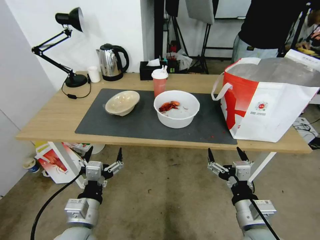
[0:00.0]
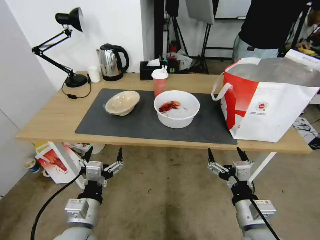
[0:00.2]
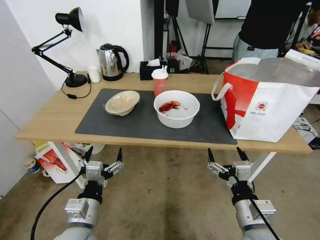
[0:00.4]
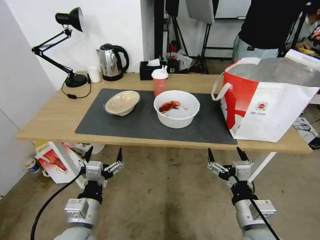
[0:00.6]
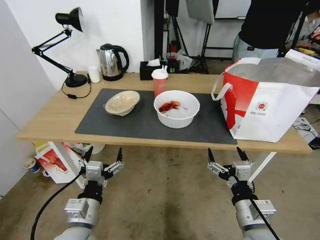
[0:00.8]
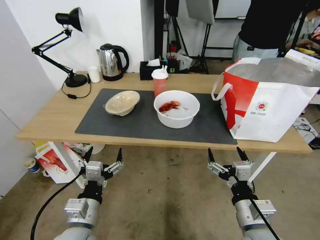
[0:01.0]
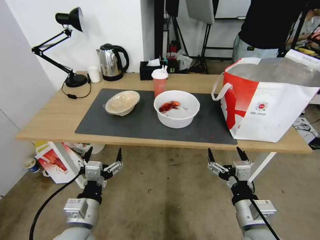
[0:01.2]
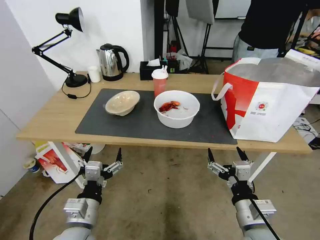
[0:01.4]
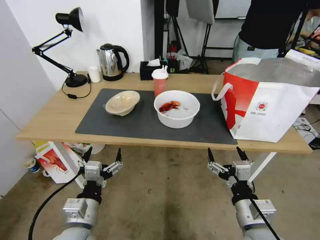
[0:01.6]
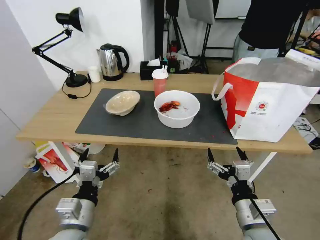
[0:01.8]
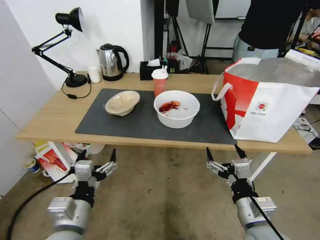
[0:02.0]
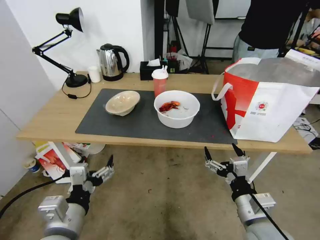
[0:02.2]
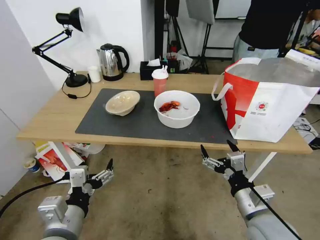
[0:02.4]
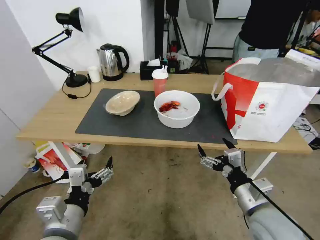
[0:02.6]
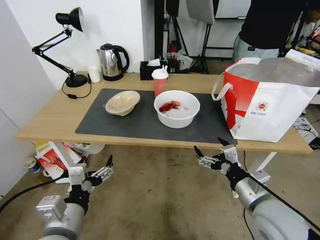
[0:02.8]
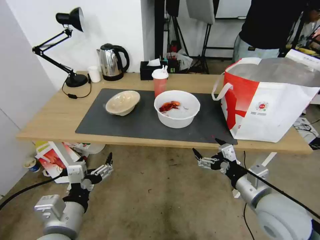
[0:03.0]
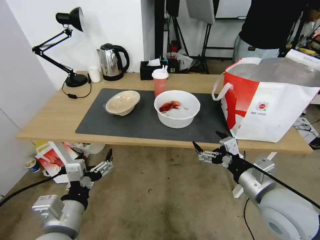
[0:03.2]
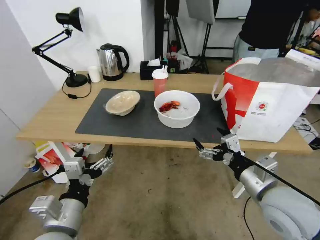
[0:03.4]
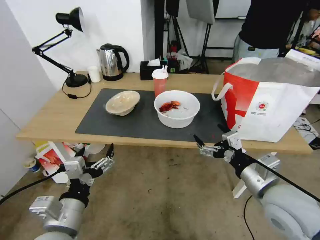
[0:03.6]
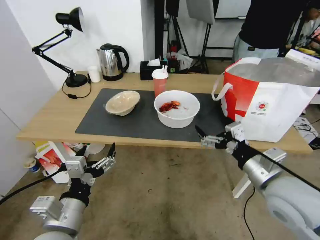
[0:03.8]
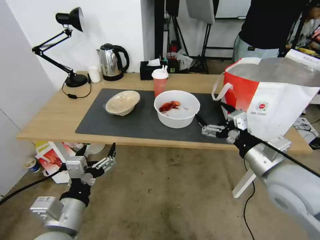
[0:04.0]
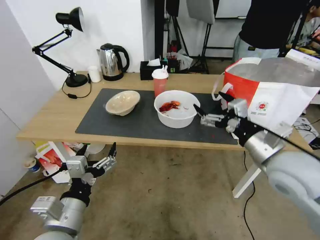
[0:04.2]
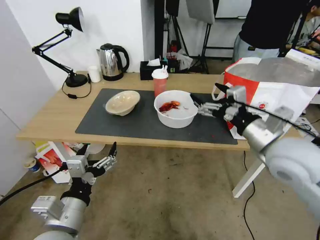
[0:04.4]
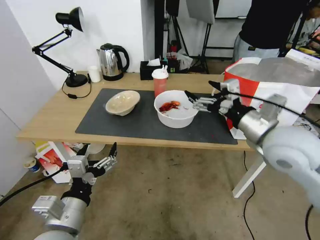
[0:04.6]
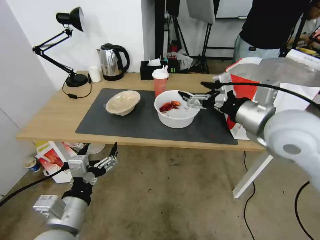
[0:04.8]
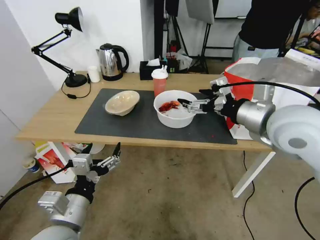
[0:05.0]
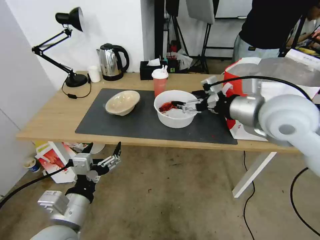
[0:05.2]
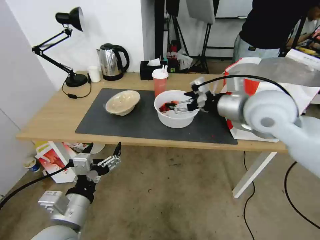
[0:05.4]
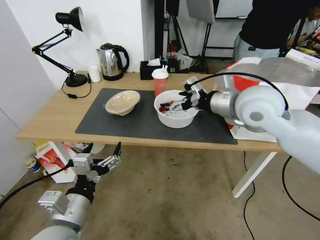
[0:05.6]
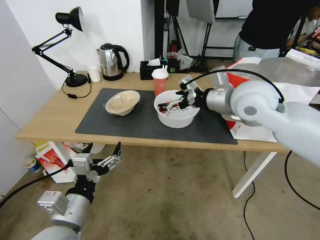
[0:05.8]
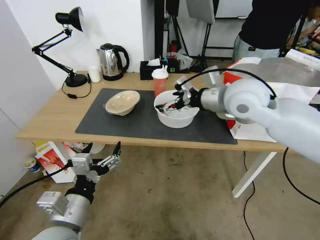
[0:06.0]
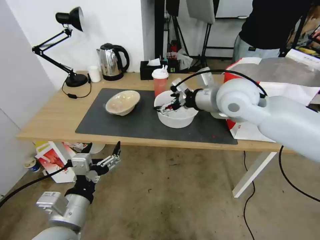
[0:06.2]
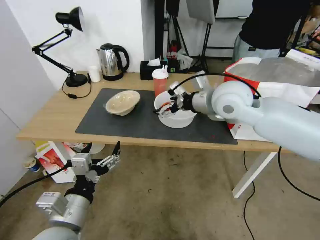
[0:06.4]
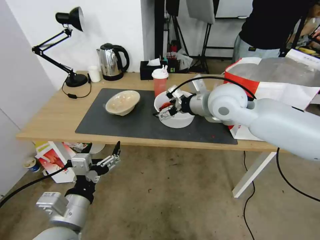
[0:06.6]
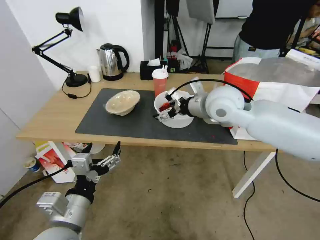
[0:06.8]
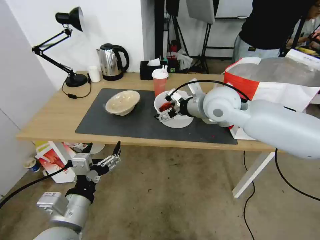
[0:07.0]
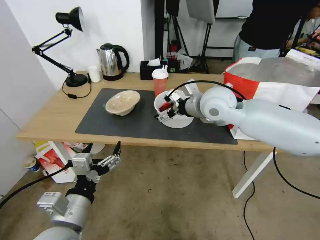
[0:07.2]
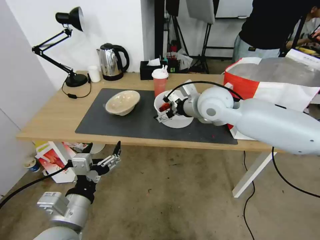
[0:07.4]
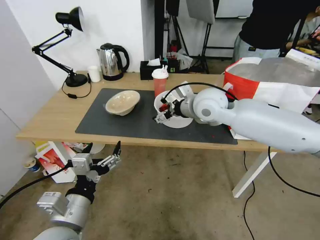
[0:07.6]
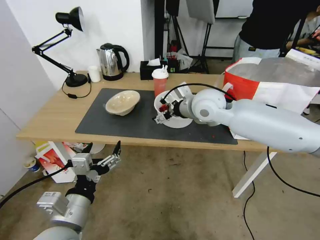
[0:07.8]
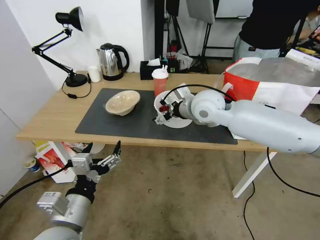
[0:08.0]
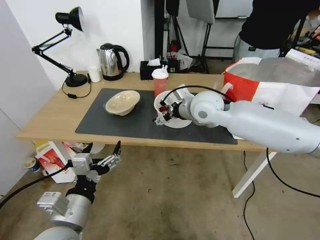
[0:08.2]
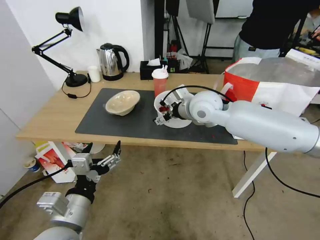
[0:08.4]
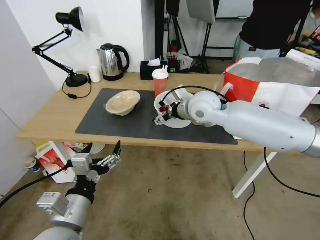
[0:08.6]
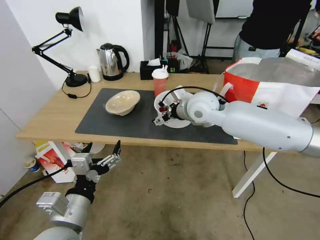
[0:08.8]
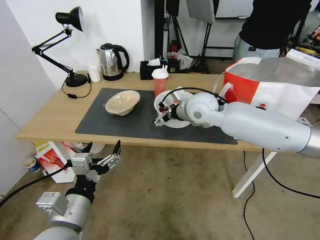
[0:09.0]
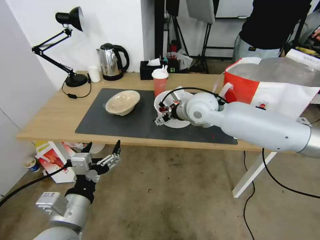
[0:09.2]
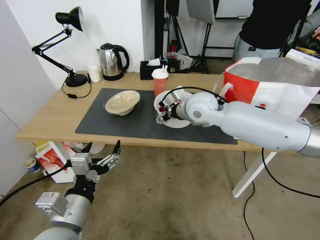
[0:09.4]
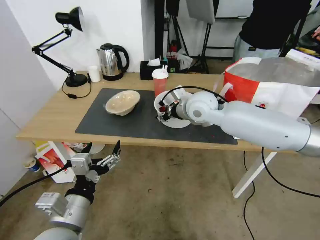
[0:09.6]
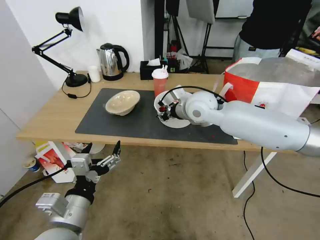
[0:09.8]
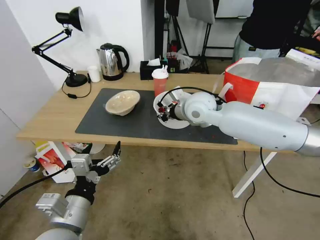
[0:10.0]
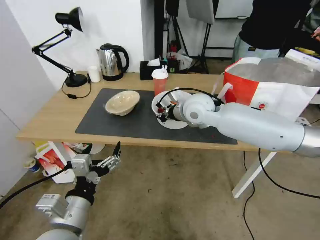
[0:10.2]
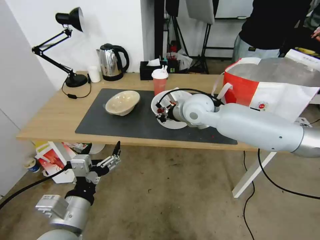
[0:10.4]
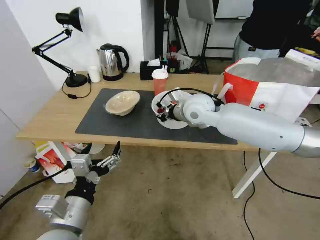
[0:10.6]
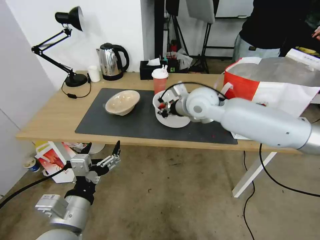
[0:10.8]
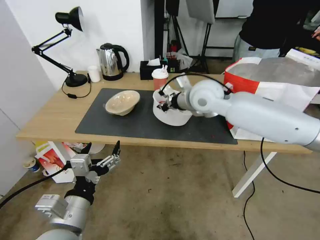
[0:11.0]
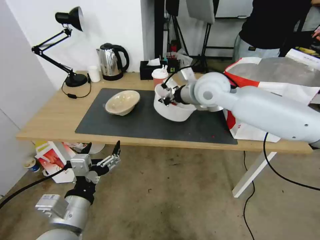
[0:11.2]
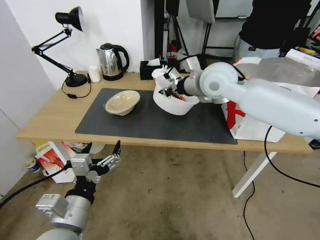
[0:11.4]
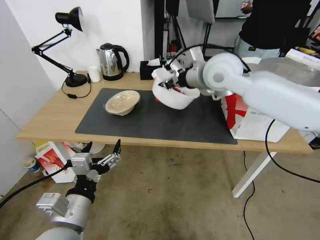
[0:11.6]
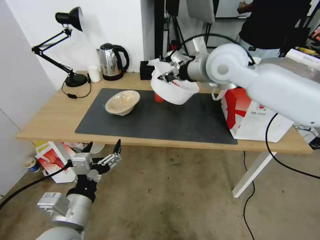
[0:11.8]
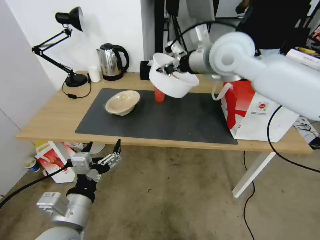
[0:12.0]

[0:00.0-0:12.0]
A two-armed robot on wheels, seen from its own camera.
Task of the whole recording: Pick up the trash from the table and place it into the takeout bag.
0:01.6 to 0:03.0: The right gripper goes roughly 10 cm forward and upward; the left gripper travels upward by about 5 cm.
0:03.0 to 0:04.4: The right gripper travels upward and forward by about 10 cm.
0:04.4 to 0:06.0: The right gripper shifts approximately 20 cm forward, upward and to the left.
0:06.0 to 0:07.6: The right gripper goes about 10 cm downward and to the left.
0:07.6 to 0:09.0: The grippers move only a little.
0:09.0 to 0:10.4: The right gripper closes.
0:10.4 to 0:12.0: The right gripper goes approximately 15 cm upward.

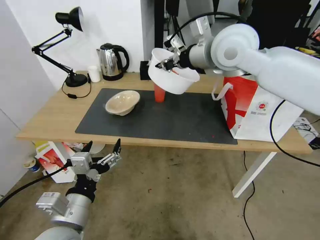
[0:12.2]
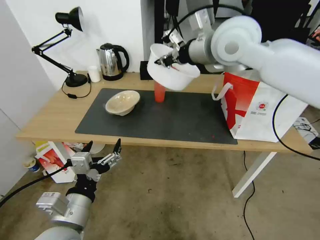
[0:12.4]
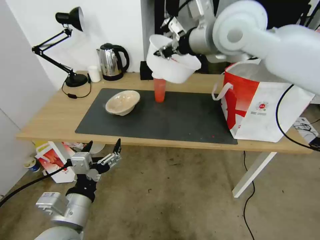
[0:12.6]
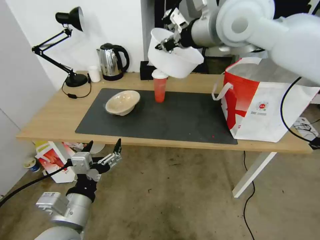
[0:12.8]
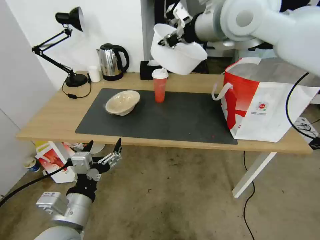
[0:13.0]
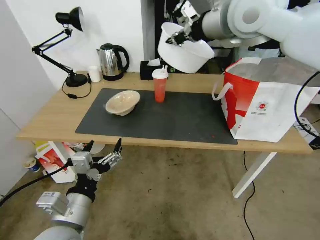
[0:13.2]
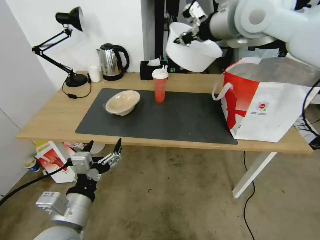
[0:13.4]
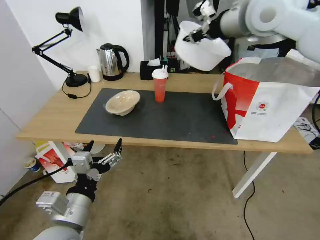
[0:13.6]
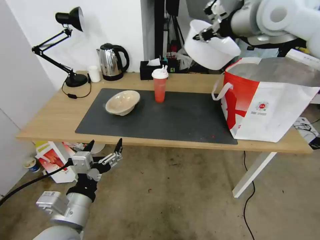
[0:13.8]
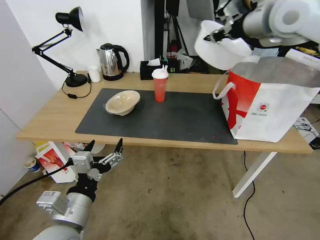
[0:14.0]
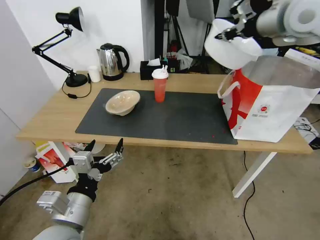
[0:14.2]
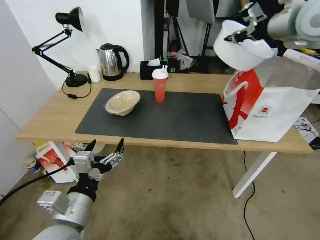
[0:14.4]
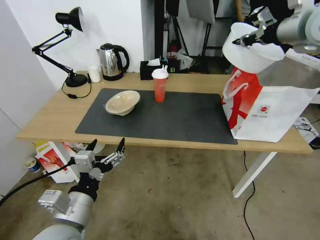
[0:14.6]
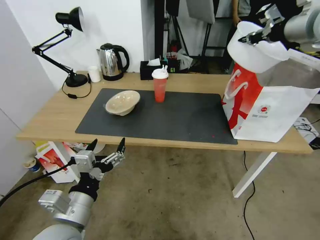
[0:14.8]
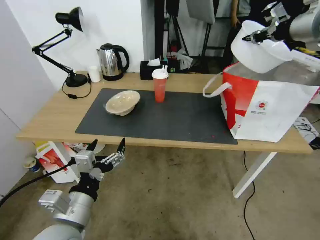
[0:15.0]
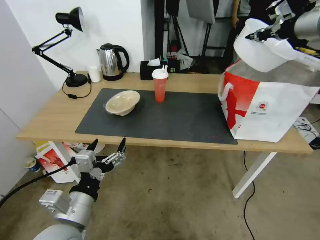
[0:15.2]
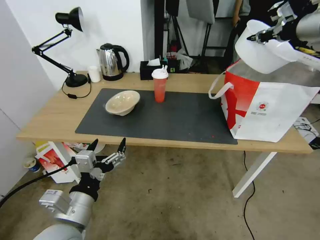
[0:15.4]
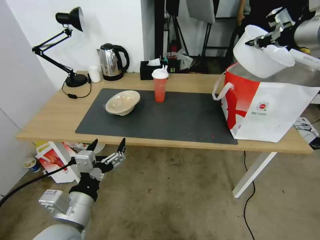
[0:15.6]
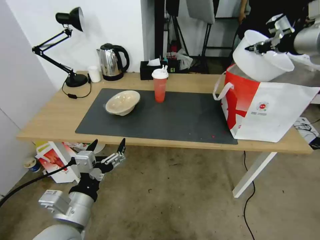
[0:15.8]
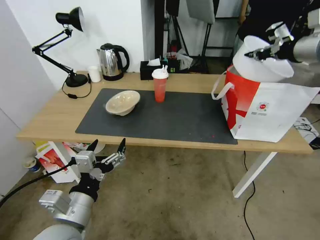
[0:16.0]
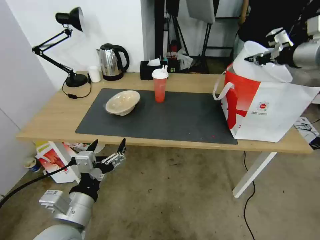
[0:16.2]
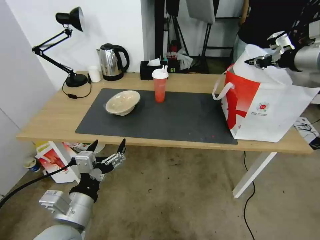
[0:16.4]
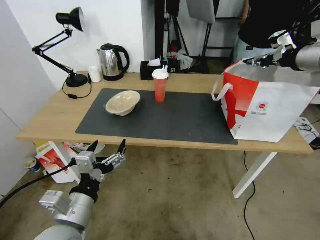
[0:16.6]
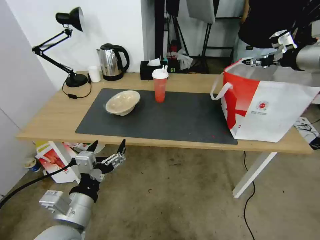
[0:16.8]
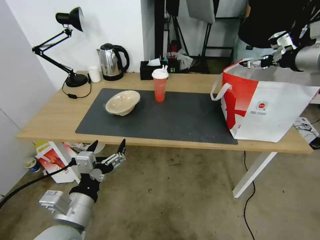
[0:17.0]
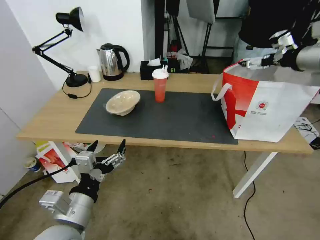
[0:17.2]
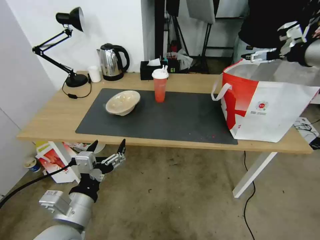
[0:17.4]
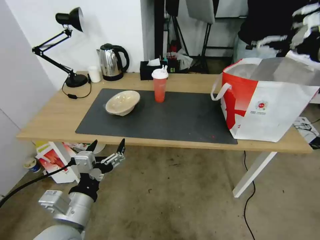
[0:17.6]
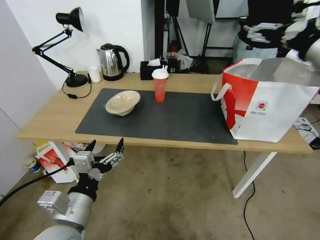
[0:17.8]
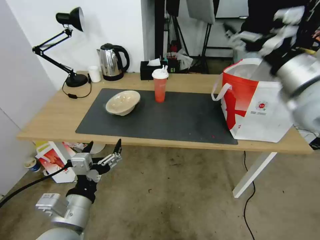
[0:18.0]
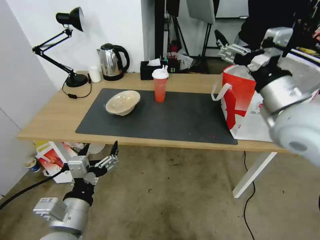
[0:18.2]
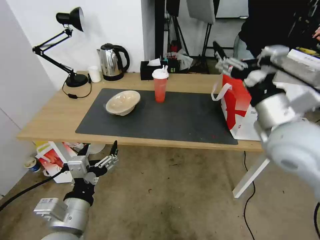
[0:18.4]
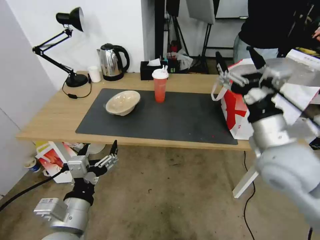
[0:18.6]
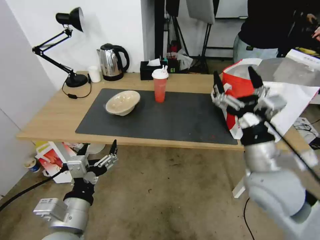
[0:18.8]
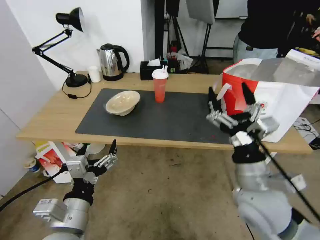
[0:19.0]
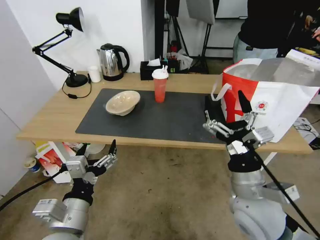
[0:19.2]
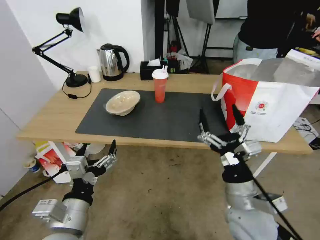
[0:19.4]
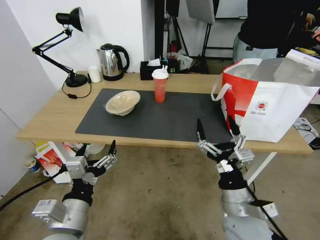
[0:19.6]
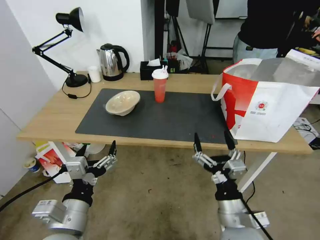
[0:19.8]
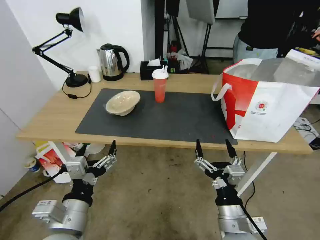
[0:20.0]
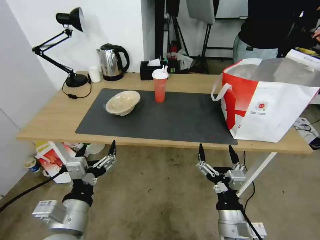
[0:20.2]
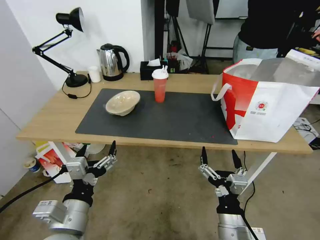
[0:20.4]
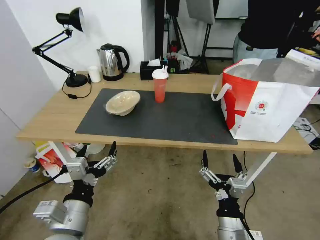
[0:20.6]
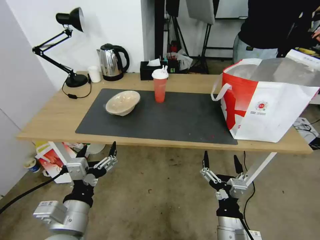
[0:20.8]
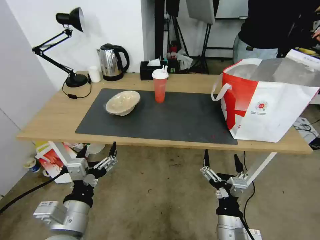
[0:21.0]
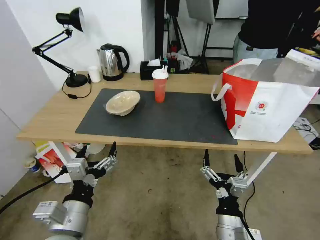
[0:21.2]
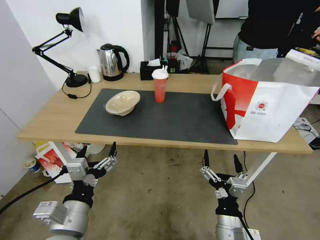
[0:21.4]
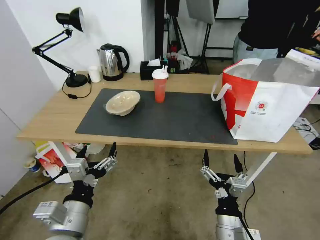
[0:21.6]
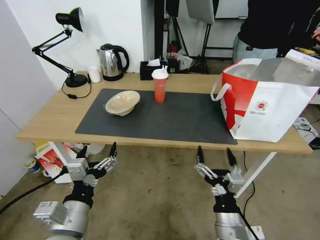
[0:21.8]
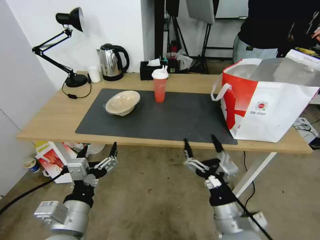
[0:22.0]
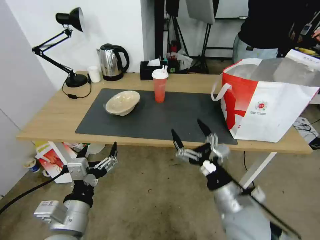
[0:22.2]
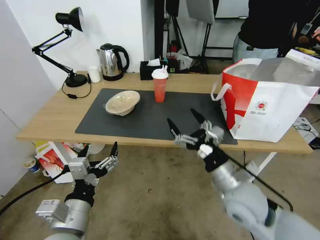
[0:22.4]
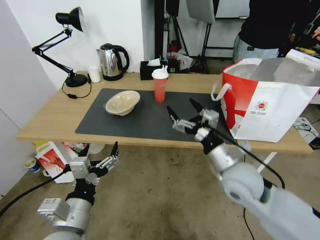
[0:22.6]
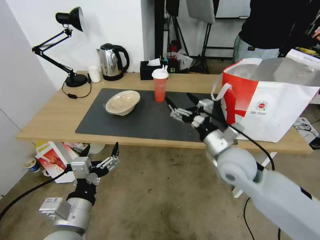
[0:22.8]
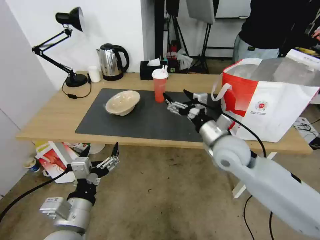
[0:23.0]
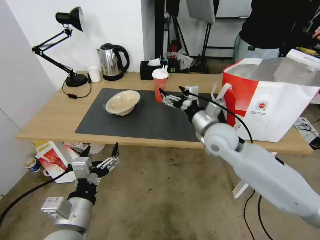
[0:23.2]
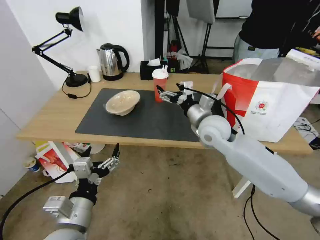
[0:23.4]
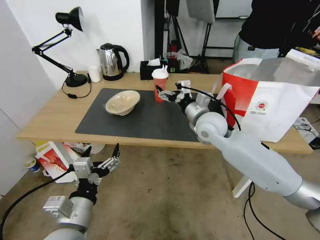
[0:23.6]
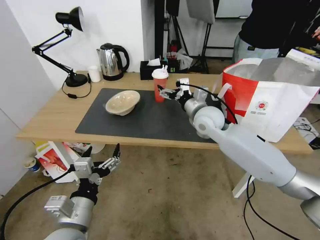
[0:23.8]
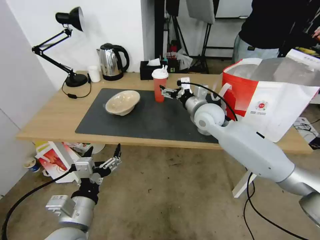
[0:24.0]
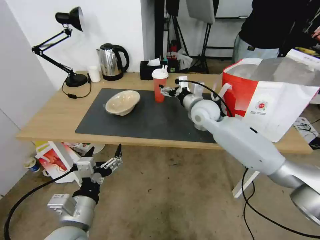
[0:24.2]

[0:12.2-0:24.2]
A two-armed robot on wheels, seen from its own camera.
Task of the whole recording: Pick up the trash from the table and place it into the takeout bag.
0:12.2 to 0:13.8: The right gripper heads to the right and upward, covering about 10 cm.
0:13.8 to 0:15.2: The right gripper travels to the right by some 15 cm.
0:15.2 to 0:16.6: The right gripper is displaced downward by some 5 cm.
0:16.6 to 0:18.2: The right gripper heads to the left, backward and downward, covering approximately 20 cm, and opens up.
0:18.2 to 0:19.8: The right gripper moves downward and backward, approximately 30 cm.
0:19.8 to 0:21.2: The right gripper ends up roughly 5 cm from where it was.
0:21.2 to 0:22.6: The right gripper heads forward and upward, covering approximately 20 cm.
0:22.6 to 0:24.2: The right gripper moves forward, approximately 20 cm.
